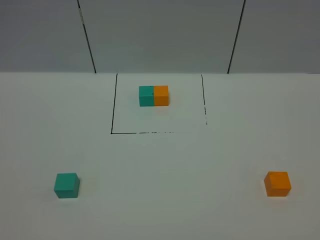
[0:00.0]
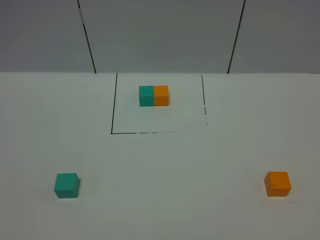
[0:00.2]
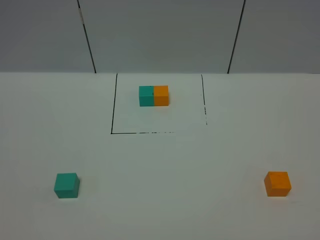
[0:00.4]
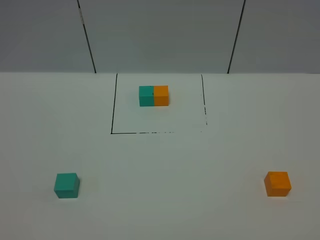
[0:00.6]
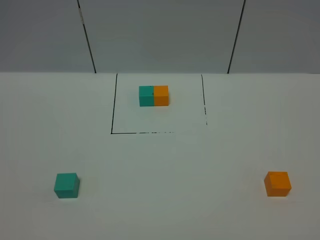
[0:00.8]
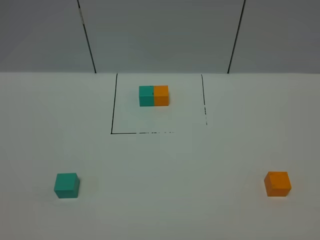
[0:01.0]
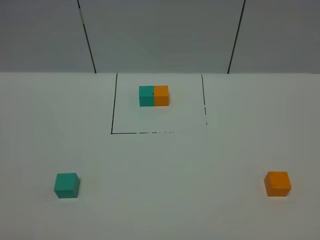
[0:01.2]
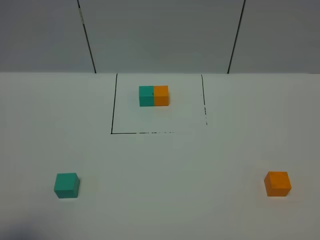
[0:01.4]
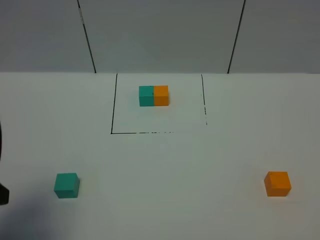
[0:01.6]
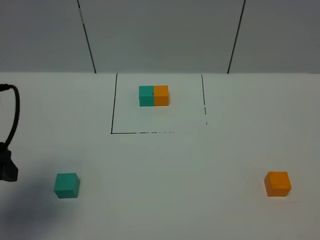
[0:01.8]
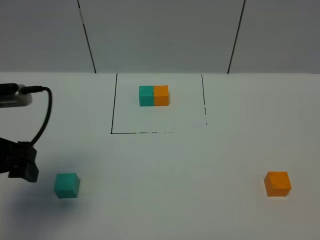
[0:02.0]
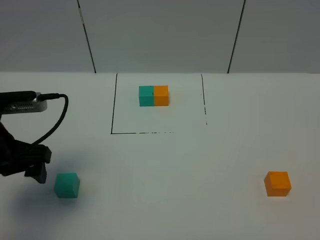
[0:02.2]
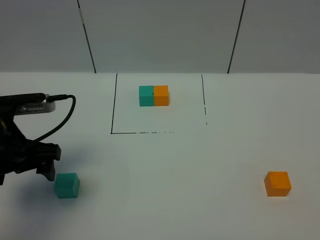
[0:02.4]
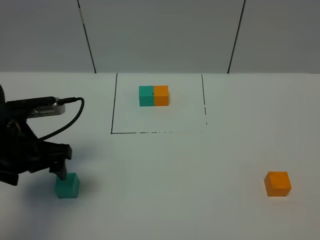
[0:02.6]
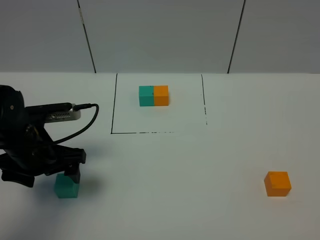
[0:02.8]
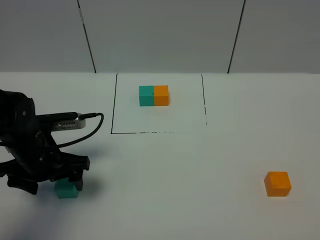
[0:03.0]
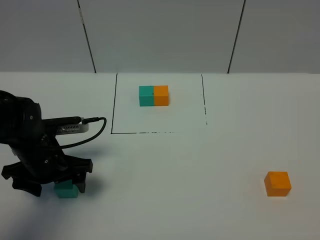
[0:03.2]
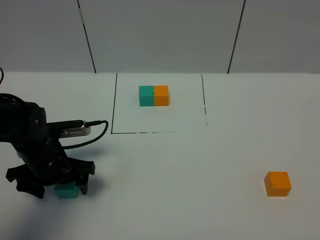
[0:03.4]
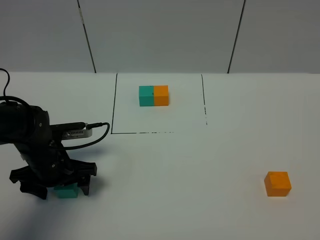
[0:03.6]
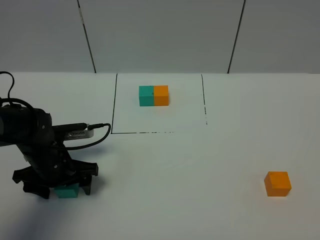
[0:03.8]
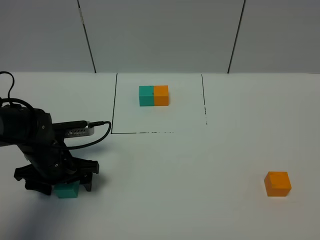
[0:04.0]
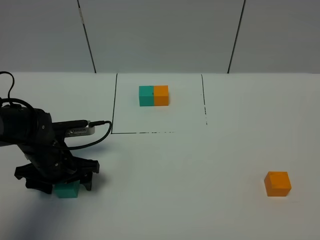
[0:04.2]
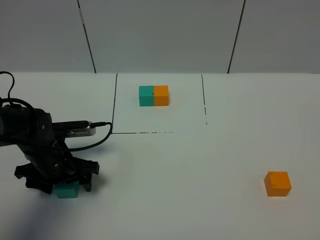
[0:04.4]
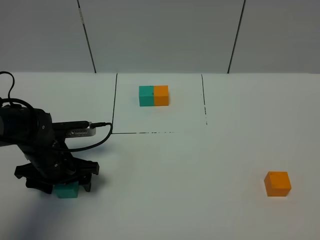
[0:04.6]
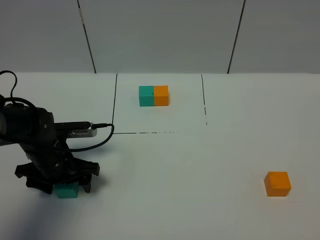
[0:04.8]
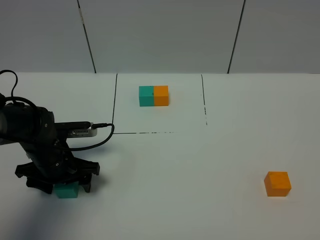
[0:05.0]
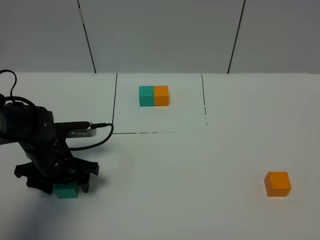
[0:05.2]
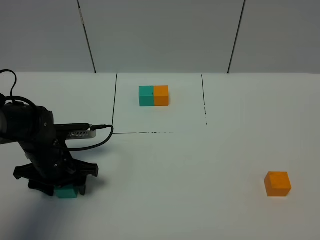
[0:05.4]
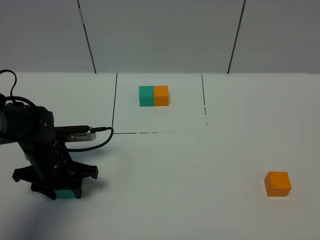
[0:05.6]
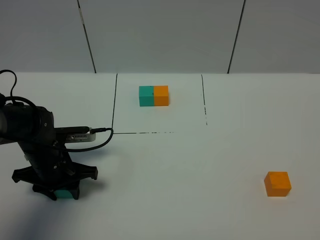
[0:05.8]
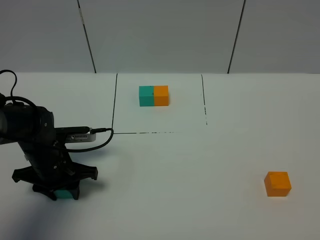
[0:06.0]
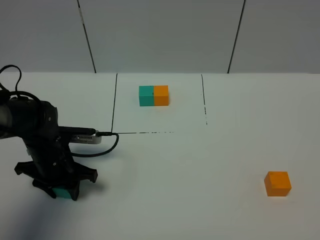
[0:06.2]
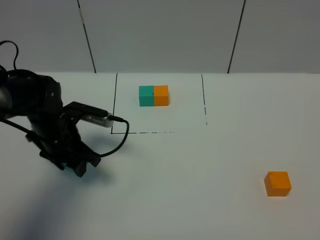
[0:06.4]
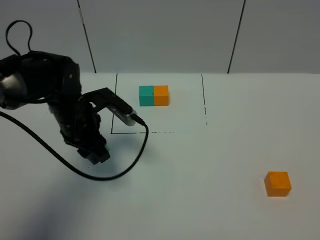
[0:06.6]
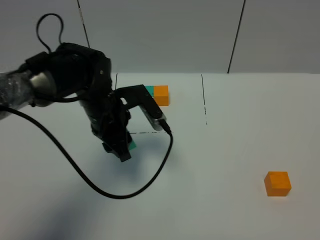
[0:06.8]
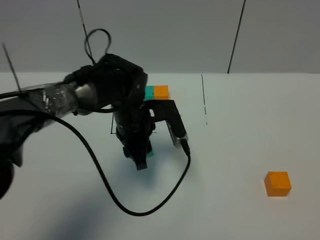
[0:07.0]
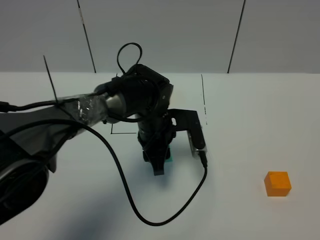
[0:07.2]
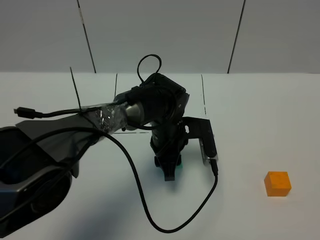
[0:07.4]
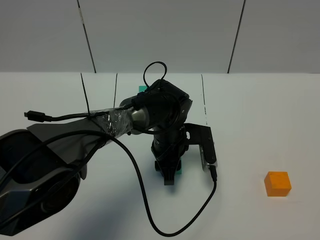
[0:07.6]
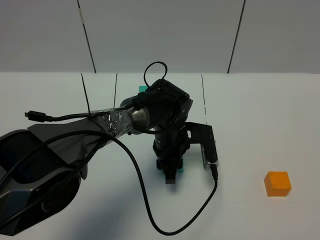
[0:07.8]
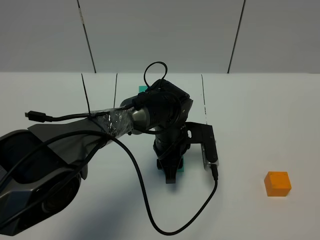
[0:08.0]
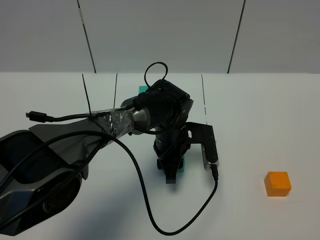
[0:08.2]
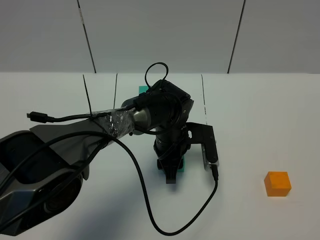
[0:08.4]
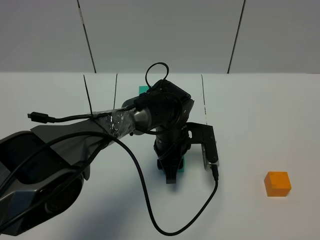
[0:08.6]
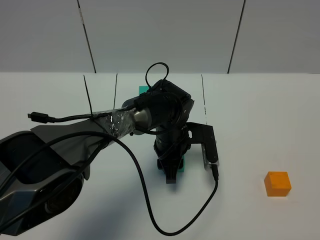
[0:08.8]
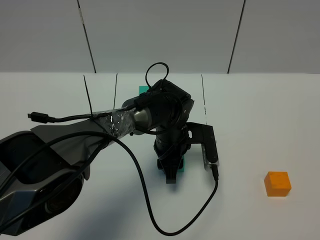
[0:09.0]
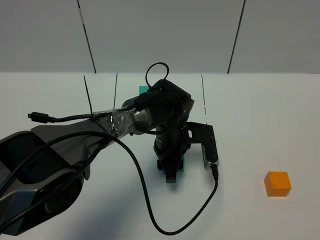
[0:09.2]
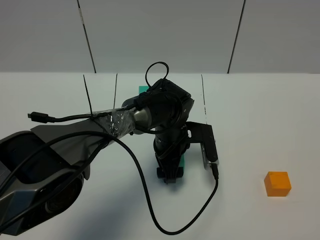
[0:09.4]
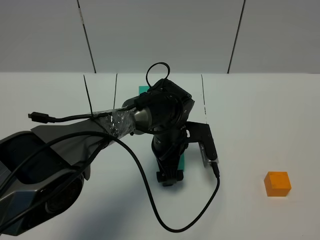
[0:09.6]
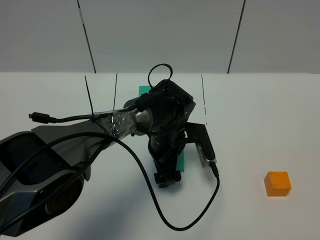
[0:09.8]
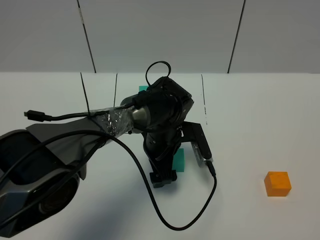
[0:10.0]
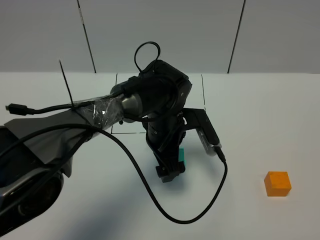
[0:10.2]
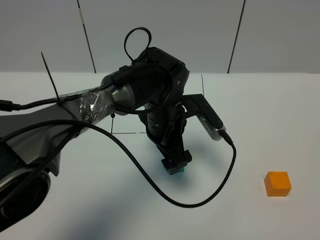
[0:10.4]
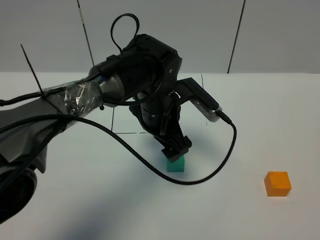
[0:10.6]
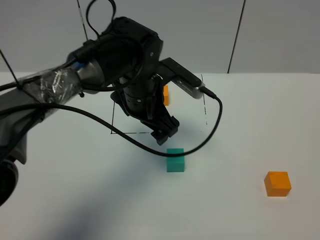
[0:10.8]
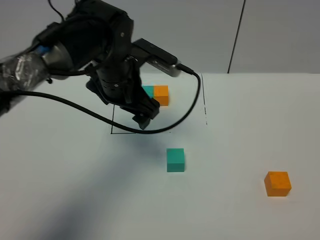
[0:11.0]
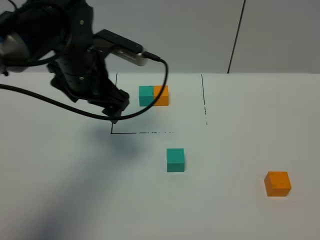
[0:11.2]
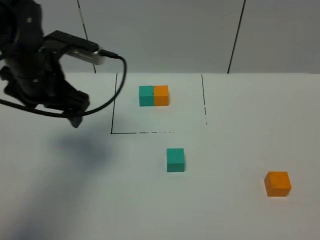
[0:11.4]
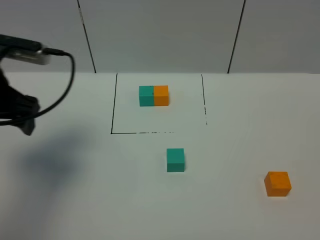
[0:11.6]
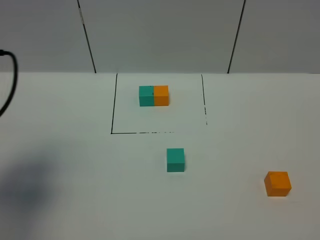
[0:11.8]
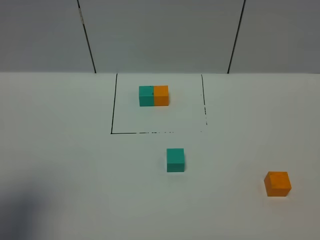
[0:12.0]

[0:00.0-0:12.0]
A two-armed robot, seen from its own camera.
Task of the whole recording: According to the building block template in front, assemble the scattered blocks together.
Step, 0:01.4 to 0:10.0: Put the green cube in the center of the table.
0:00.0 to 0:01.6: The left gripper travels forward by about 15 cm.
0:01.6 to 0:03.0: The left gripper goes some 20 cm forward, downward and to the right.
0:03.0 to 0:04.4: The left gripper goes approximately 5 cm downward.
0:04.4 to 0:06.0: The left gripper closes up.
0:06.0 to 0:07.6: The left gripper moves to the right, about 25 cm.
0:07.6 to 0:09.0: Both grippers stay put.
0:09.0 to 0:10.4: The left gripper moves upward, approximately 10 cm, and opens.
0:10.4 to 0:12.0: The left gripper moves to the left, backward and upward, some 40 cm.

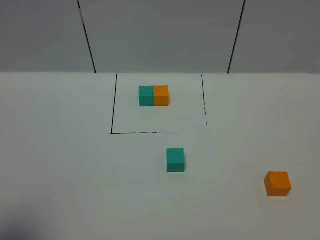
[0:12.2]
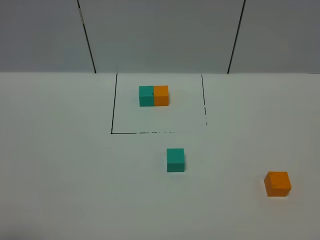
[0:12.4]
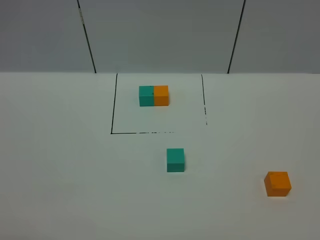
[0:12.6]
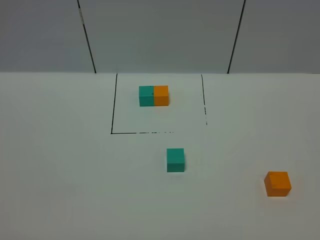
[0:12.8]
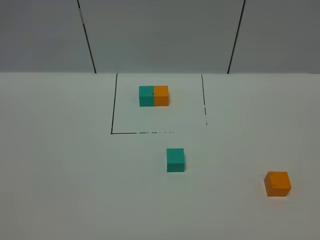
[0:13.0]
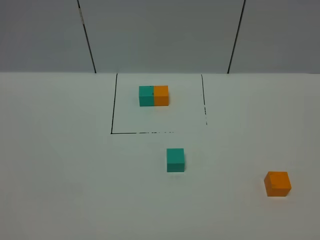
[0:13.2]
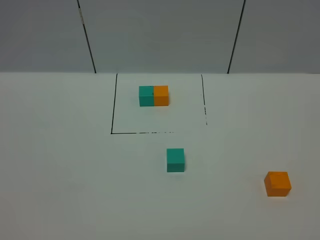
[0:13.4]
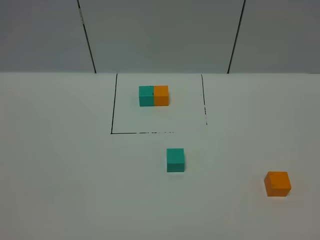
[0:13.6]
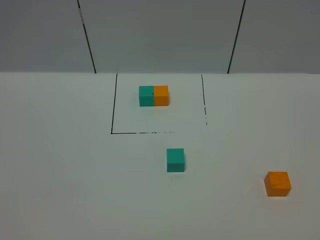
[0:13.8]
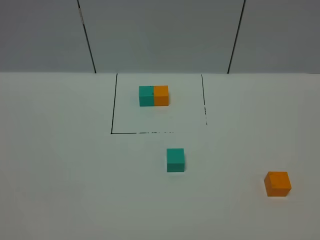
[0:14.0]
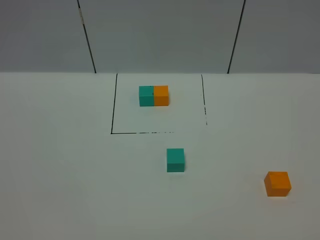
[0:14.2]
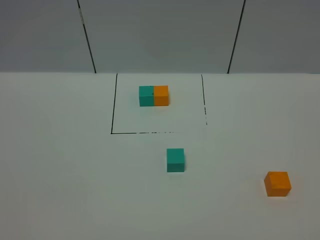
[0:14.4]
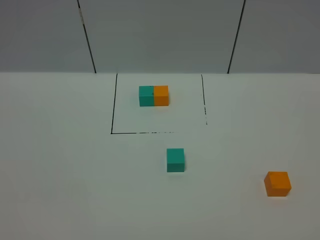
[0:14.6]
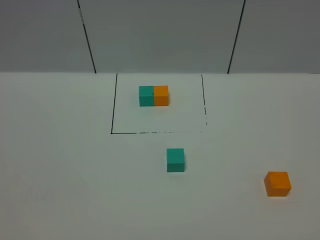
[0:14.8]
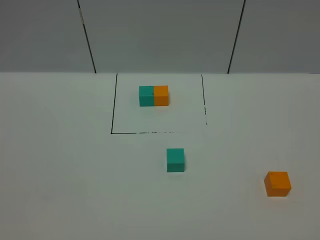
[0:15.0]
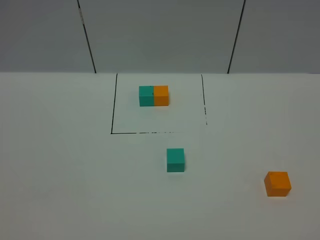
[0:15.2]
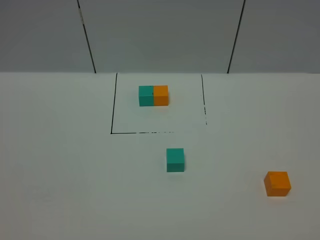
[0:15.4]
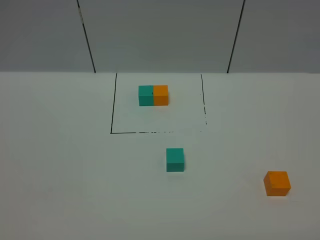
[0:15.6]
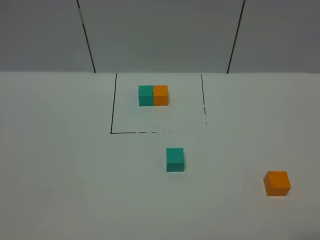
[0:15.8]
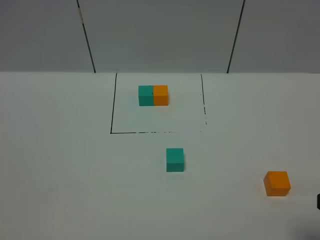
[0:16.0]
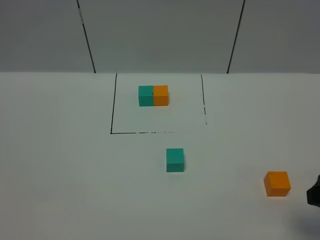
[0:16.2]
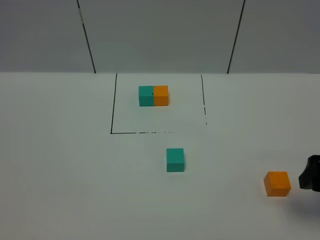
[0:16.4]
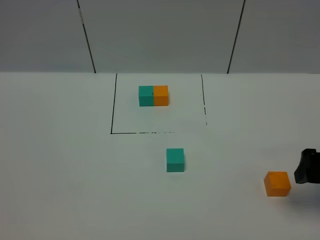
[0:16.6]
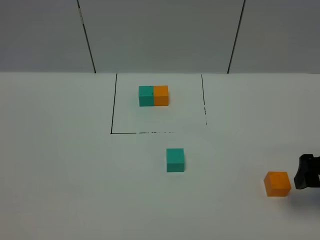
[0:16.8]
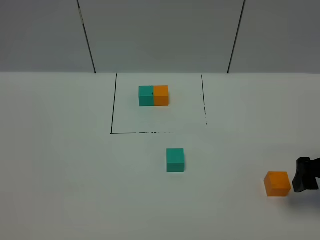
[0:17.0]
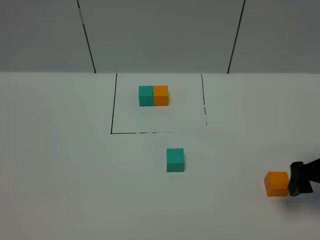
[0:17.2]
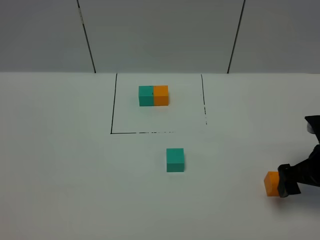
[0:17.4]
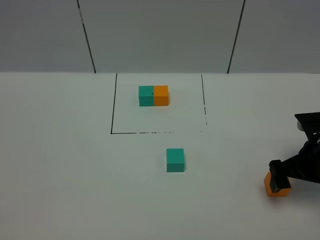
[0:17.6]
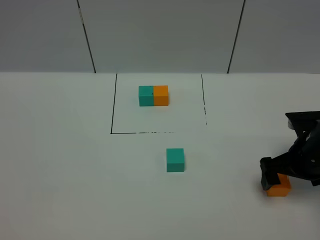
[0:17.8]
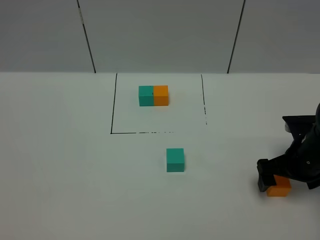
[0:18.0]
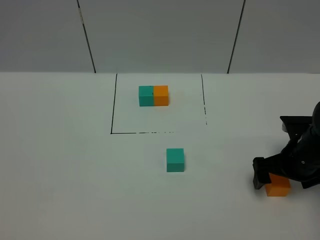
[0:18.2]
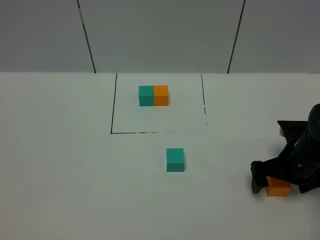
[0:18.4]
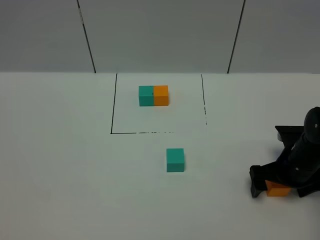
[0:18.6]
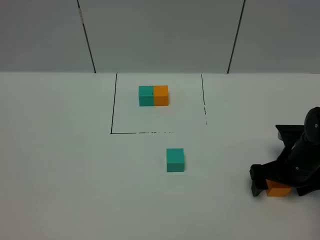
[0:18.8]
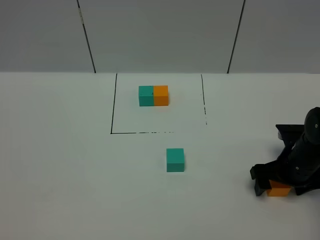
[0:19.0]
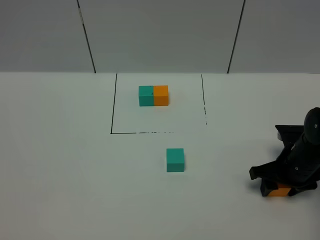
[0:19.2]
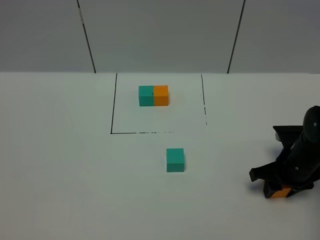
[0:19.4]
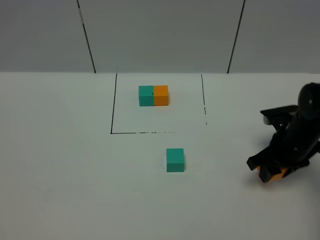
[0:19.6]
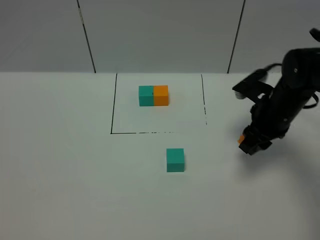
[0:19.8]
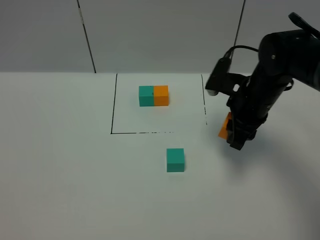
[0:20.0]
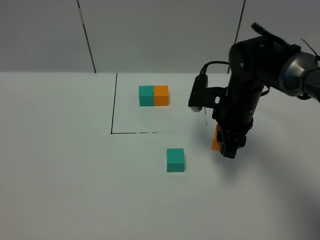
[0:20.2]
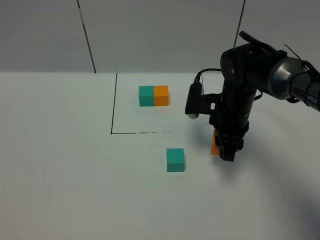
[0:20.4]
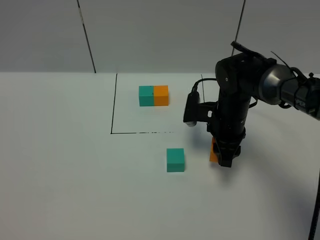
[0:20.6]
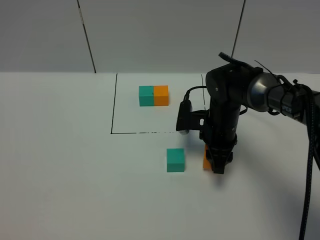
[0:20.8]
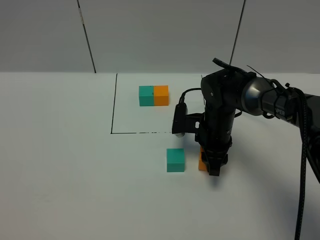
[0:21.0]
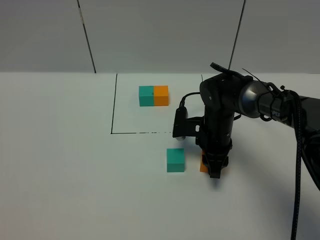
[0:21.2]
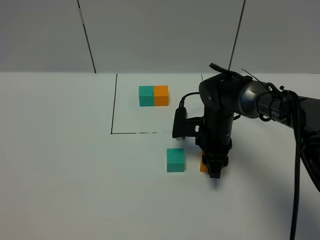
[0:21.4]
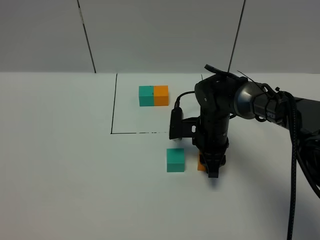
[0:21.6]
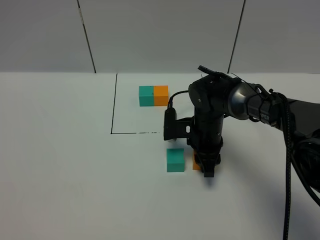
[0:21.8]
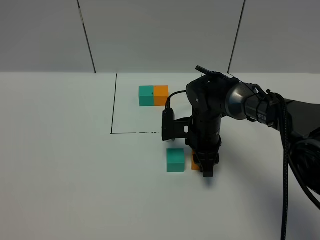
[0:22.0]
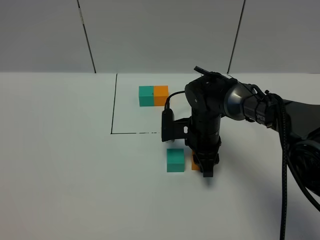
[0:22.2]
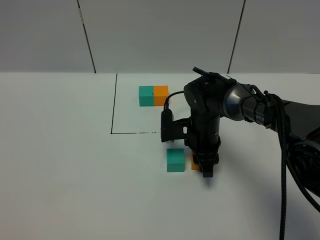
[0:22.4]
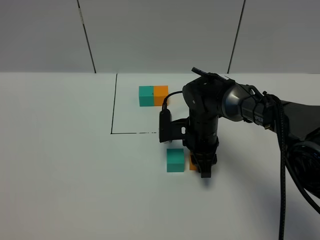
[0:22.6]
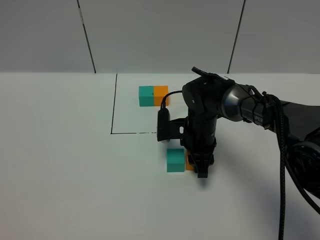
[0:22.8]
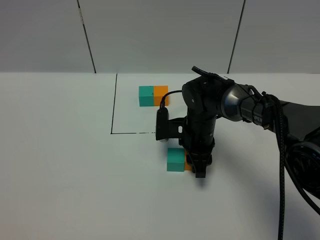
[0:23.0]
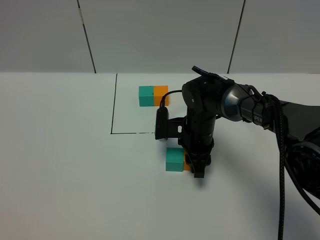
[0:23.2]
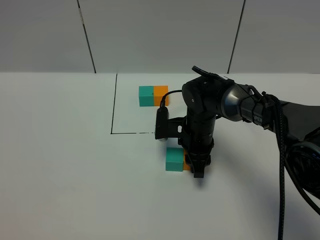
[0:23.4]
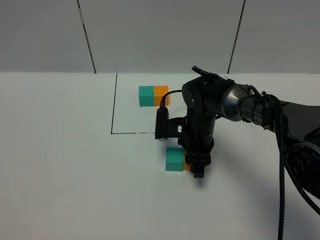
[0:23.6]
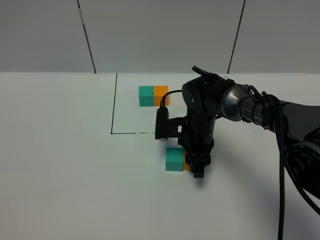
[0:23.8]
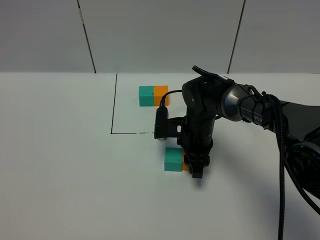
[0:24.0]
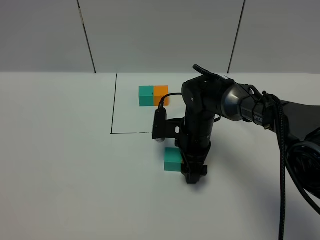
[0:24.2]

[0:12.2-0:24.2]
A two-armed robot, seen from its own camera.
Task of the whole recording: According to the building block template in front, assemble the scattered blocks together.
0:12.2 to 0:13.8: The left gripper is displaced backward and downward by roughly 10 cm.
0:13.8 to 0:15.2: Both grippers stay put.
0:15.2 to 0:16.6: The right gripper shifts about 25 cm forward, and opens its fingers.
0:16.6 to 0:18.2: The right gripper travels downward and forward by roughly 10 cm.
0:18.2 to 0:19.8: The right gripper goes approximately 10 cm upward, forward and to the left, and closes up.
0:19.8 to 0:21.2: The right gripper heads downward and to the left, covering about 15 cm.
0:21.2 to 0:22.6: The grippers stay close to where they were, moving slightly.
0:22.6 to 0:24.2: The right gripper opens up.
